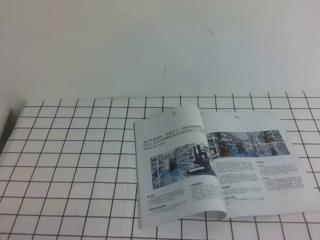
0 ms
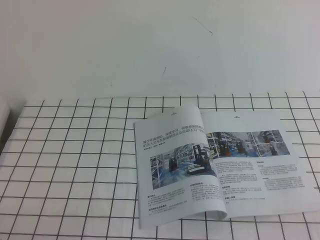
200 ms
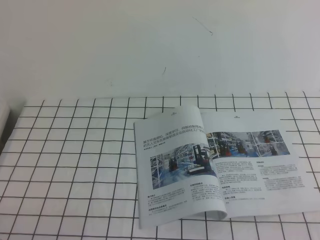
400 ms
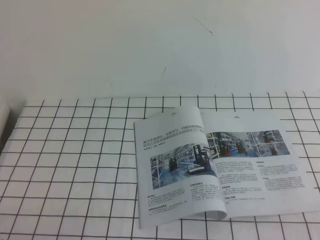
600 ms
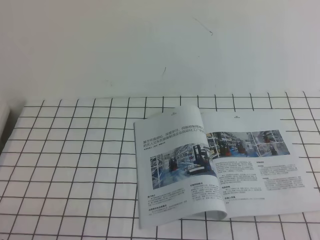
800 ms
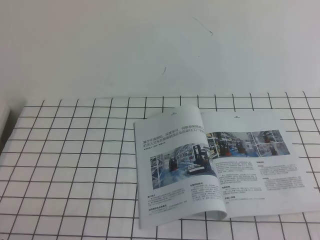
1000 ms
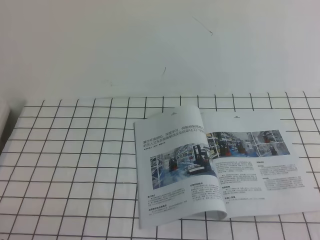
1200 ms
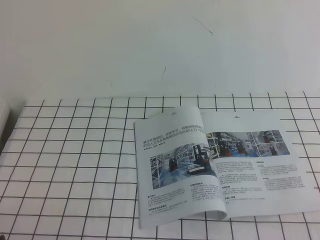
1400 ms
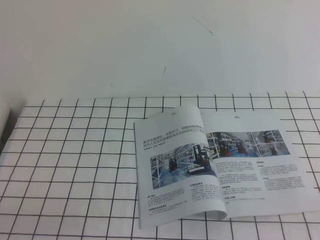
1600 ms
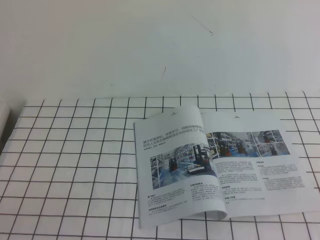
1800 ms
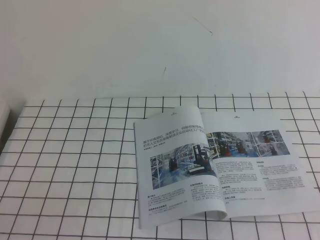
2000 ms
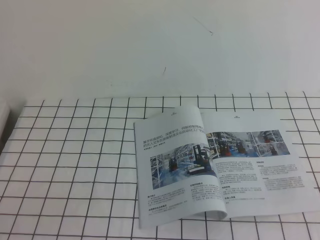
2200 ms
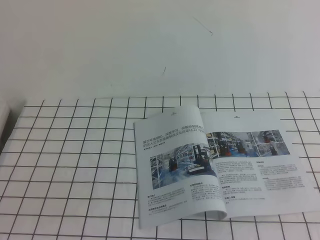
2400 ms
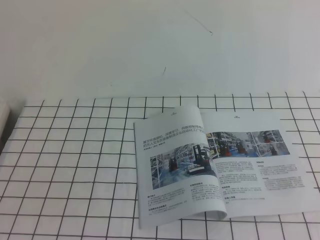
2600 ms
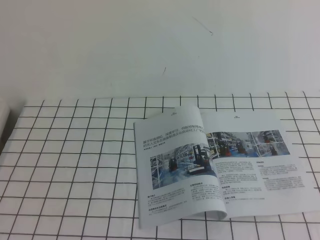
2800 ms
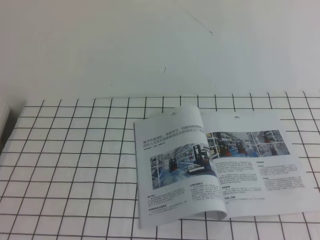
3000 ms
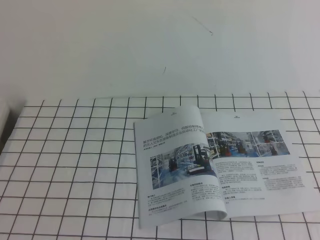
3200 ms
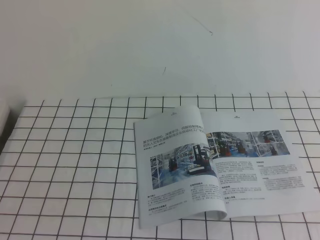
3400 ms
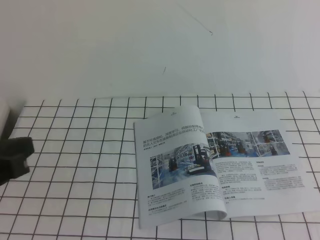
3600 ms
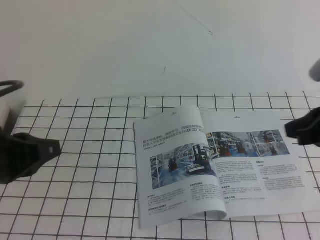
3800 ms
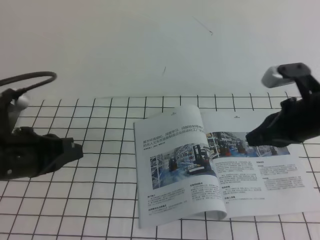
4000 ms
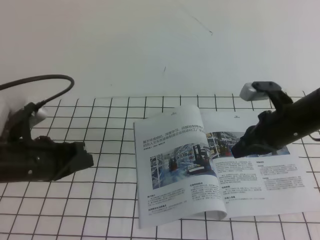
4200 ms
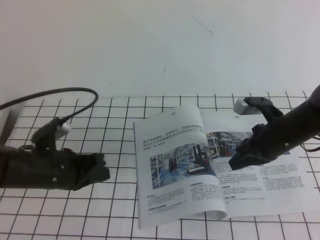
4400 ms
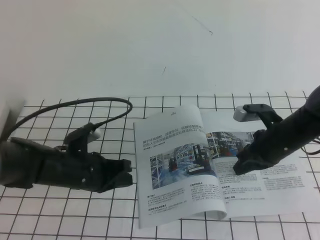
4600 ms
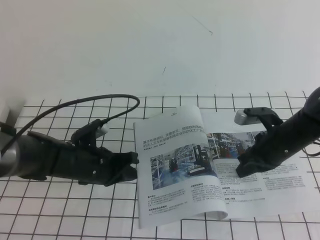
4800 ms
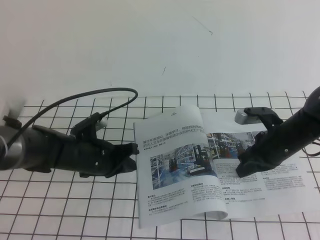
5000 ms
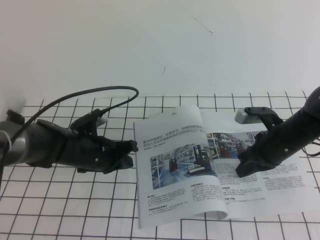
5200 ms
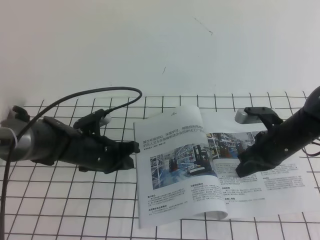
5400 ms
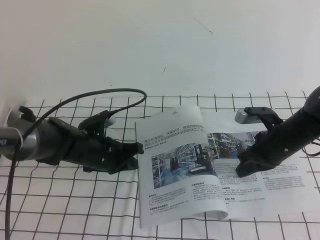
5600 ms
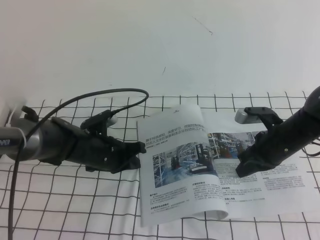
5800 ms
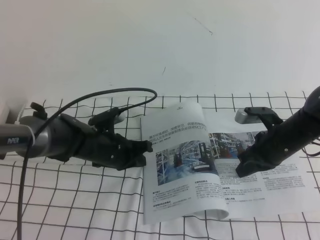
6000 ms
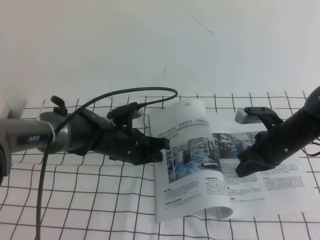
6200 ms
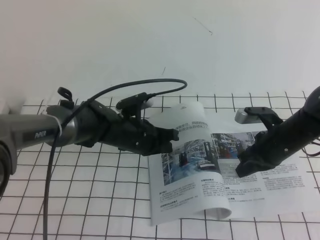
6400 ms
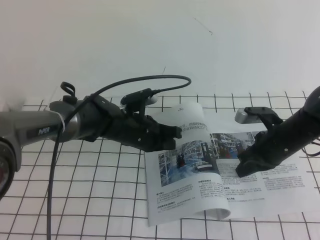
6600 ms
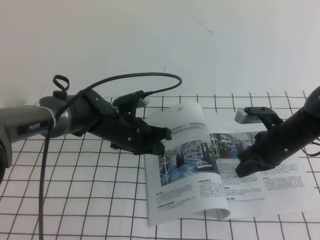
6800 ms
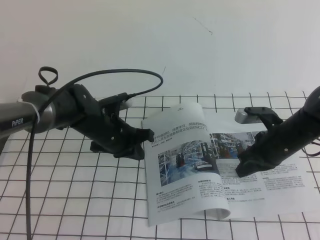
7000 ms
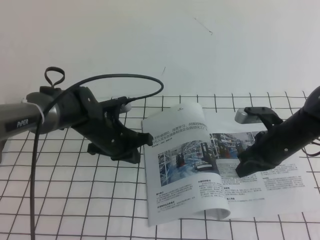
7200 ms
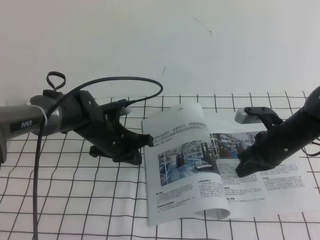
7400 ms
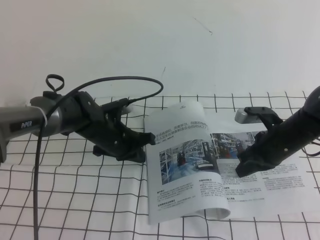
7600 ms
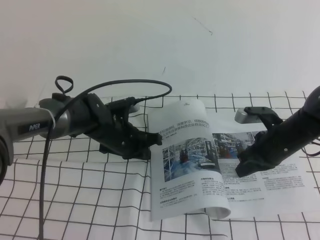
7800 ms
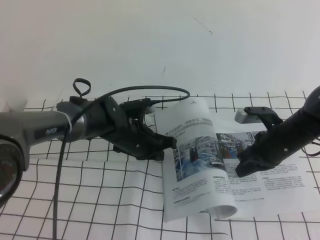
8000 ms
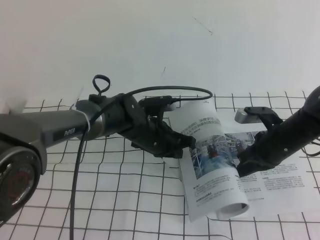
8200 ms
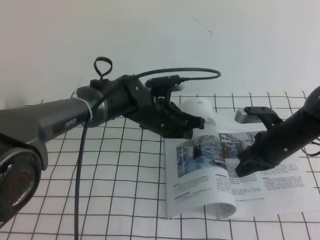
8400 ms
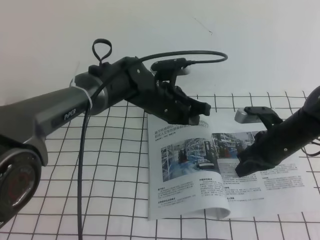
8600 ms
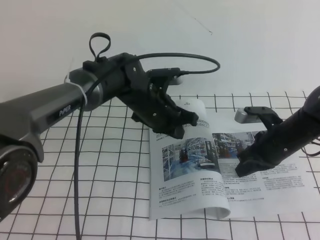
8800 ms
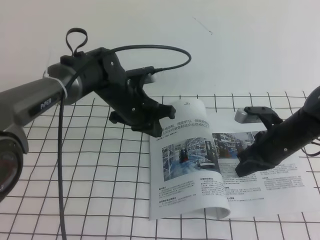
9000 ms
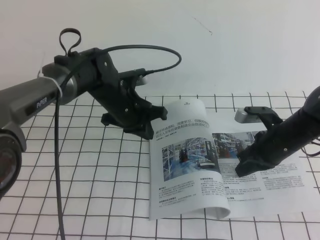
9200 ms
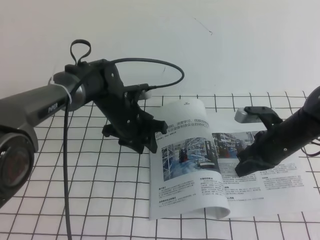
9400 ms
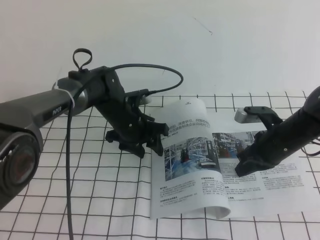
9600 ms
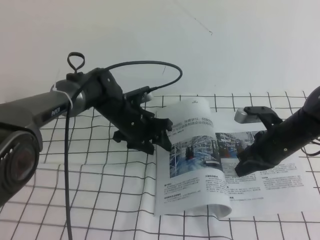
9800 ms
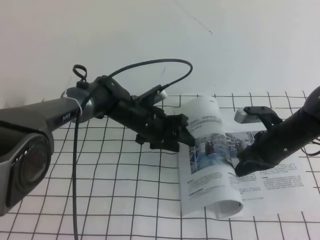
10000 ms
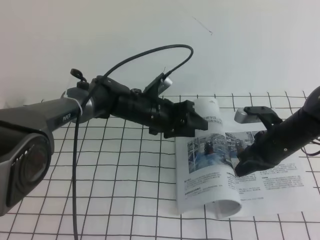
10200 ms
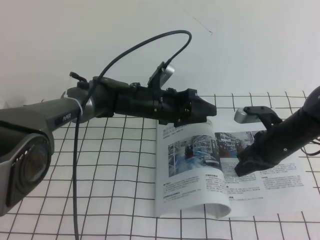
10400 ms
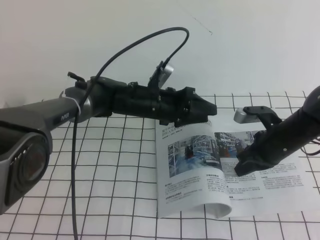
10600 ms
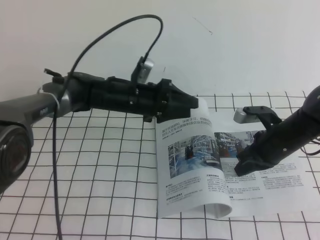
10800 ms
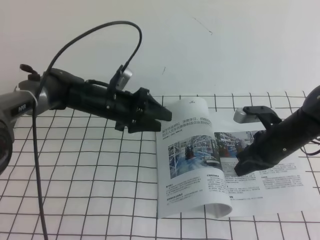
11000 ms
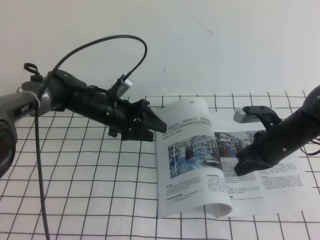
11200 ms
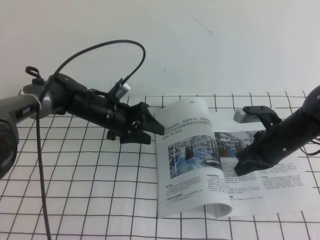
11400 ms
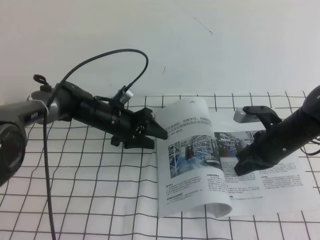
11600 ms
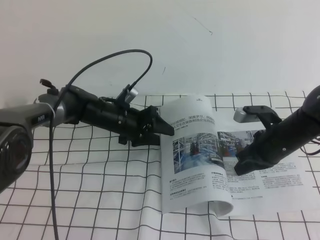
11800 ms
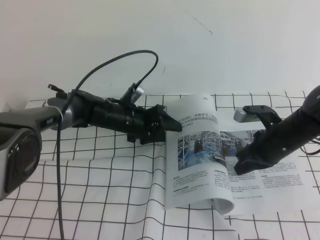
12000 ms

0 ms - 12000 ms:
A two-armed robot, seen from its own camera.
Task of the whole recording: on the white tablecloth, hold the book with one hand and close it with the other.
3000 ms - 4400 ms: Both grippers move forward and downward, roughly 40 cm.
4400 ms - 6000 ms: The left gripper is displaced to the right, forward and downward by roughly 15 cm.
6000 ms - 7600 ms: The grippers stay close to where they were, moving slightly.
7600 ms - 9000 ms: The left gripper travels upward and to the right by roughly 10 cm.
9000 ms - 10400 ms: The left gripper shifts by roughly 5 cm, and opens up.
10400 ms - 12000 ms: The left gripper heads to the left and downward, covering some 10 cm.

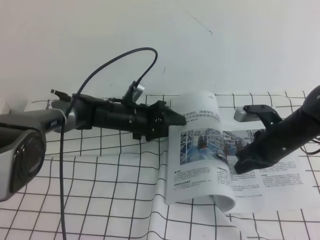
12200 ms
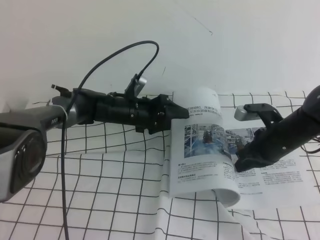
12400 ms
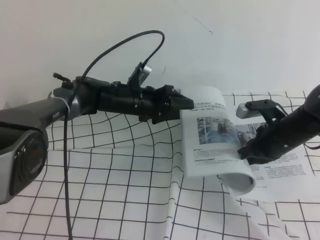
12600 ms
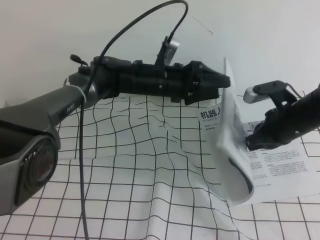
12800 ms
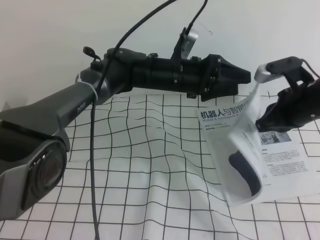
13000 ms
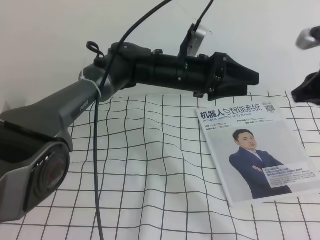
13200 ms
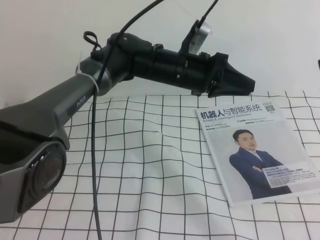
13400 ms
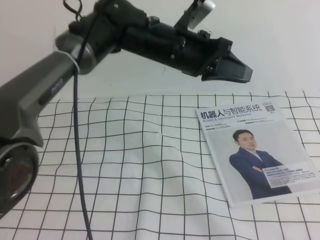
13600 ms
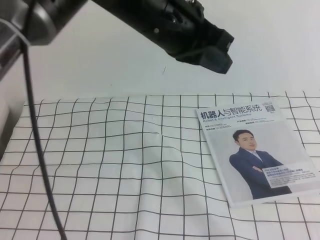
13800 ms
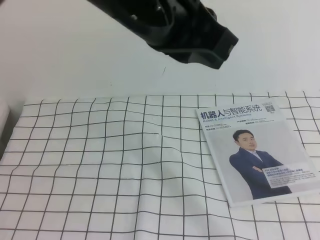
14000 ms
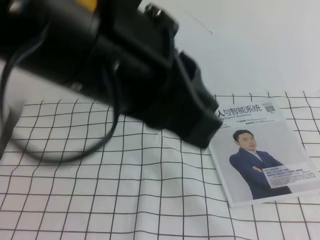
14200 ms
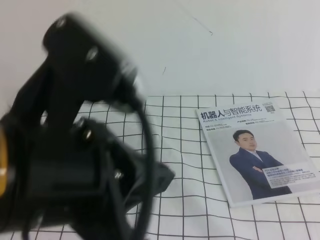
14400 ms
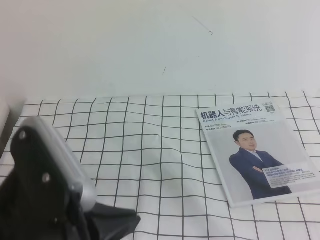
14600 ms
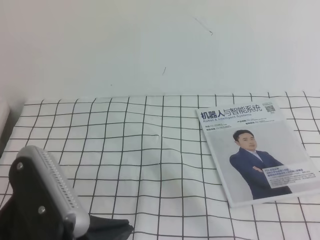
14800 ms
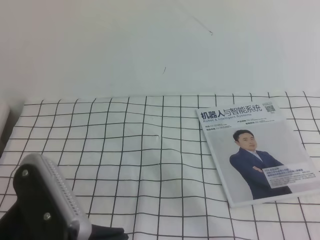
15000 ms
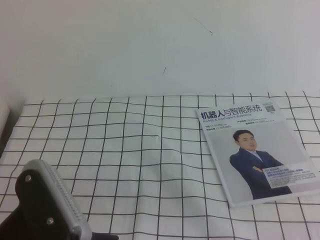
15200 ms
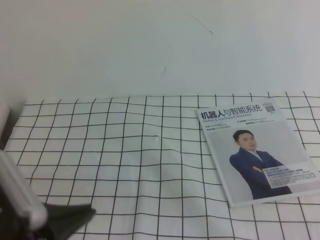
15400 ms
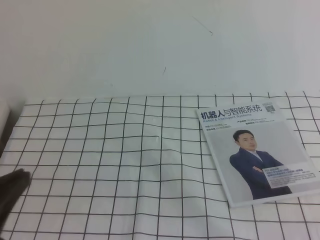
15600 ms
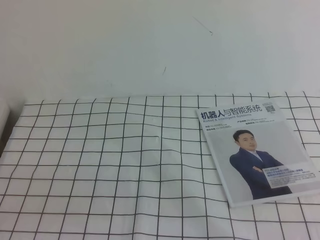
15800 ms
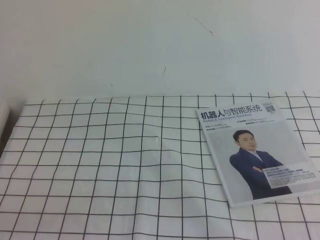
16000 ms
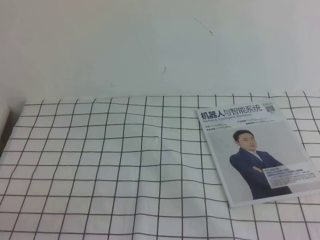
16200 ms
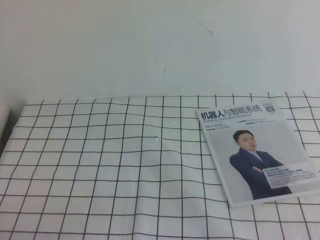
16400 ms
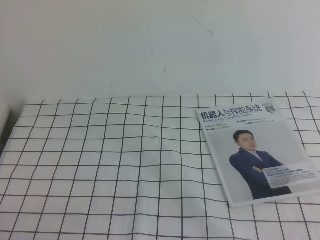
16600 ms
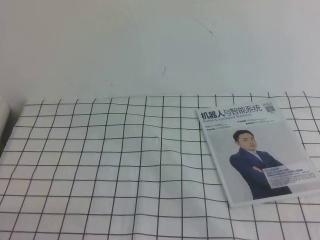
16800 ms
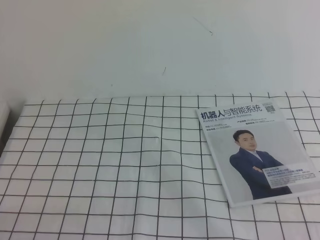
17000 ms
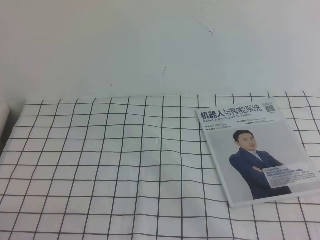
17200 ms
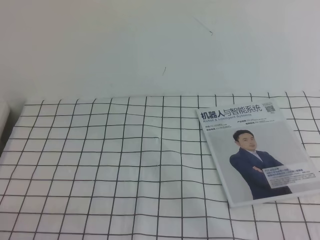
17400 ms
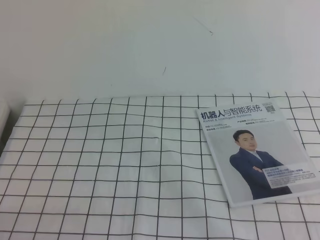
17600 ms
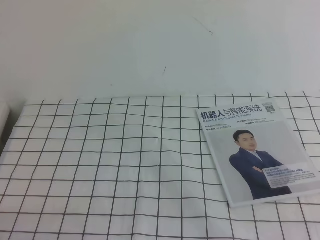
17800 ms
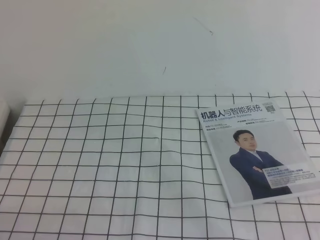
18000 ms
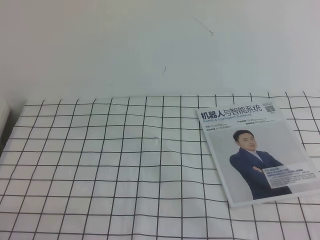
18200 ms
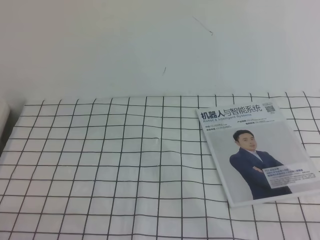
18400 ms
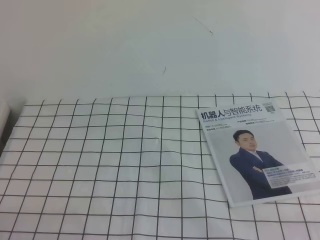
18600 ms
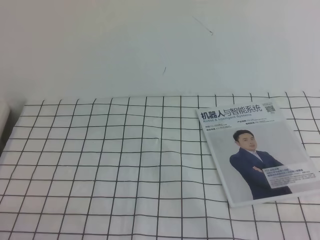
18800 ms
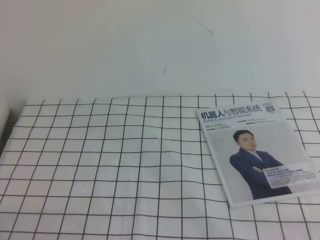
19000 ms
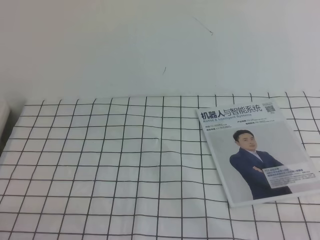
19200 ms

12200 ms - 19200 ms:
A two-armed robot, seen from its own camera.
Task of the whole recording: on the white tablecloth, hold the book with one hand and close it with the other.
Step, 12200 ms - 19200 ms: Close the open book.
12200 ms - 13600 ms: The left gripper moves upward, roughly 20 cm, and closes; the right gripper heads upward and backward, covering about 30 cm.
13600 ms - 15000 ms: The right gripper shifts about 25 cm backward and downward, while the left gripper goes about 35 cm backward and to the left.
15000 ms - 16400 ms: The left gripper goes some 15 cm downward and to the left.
